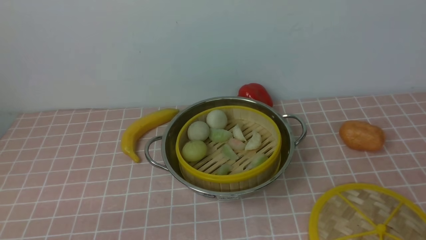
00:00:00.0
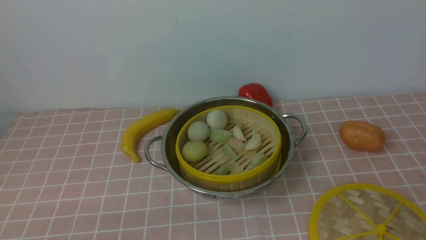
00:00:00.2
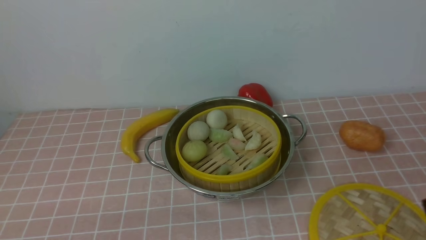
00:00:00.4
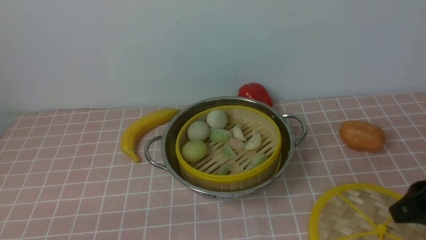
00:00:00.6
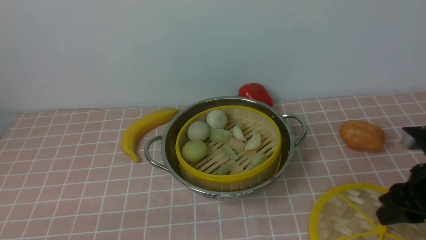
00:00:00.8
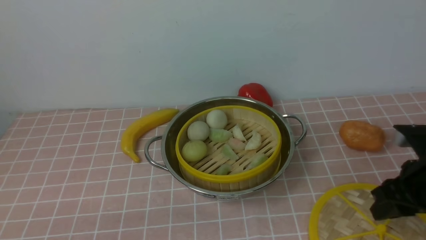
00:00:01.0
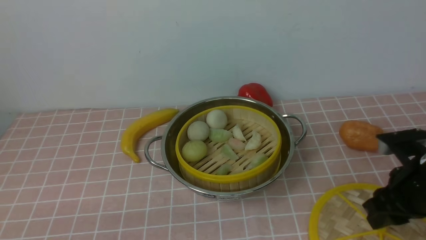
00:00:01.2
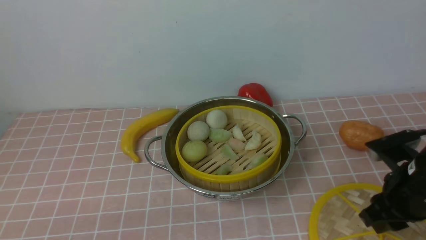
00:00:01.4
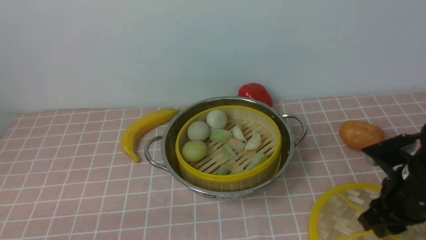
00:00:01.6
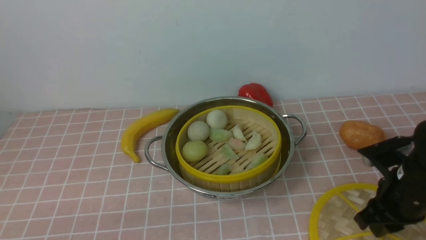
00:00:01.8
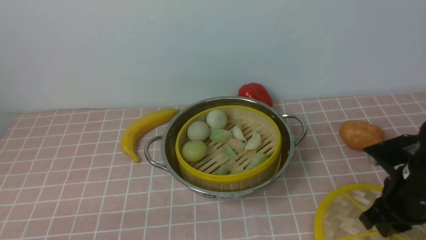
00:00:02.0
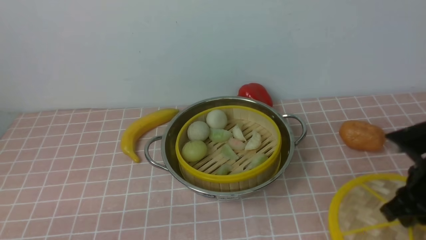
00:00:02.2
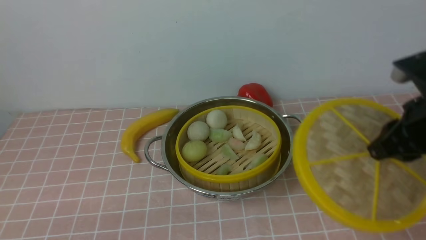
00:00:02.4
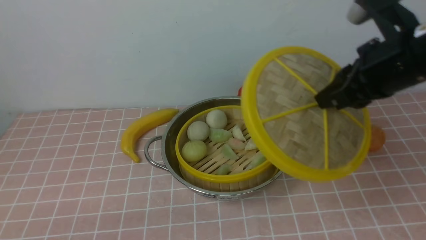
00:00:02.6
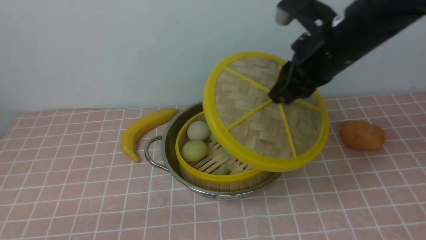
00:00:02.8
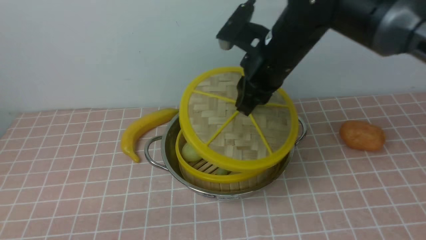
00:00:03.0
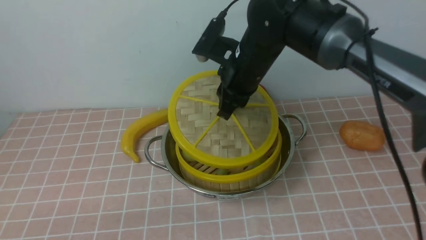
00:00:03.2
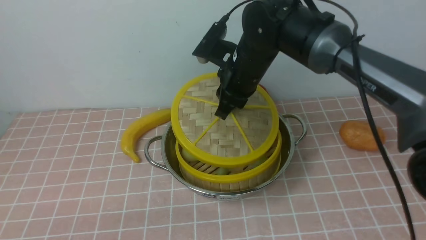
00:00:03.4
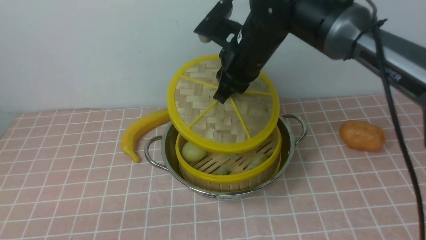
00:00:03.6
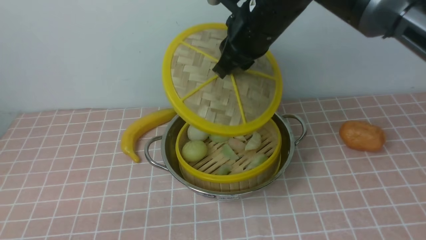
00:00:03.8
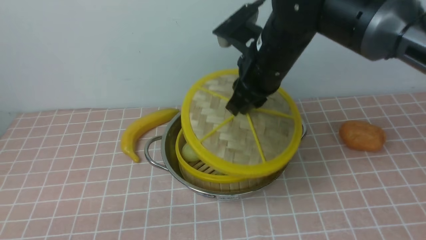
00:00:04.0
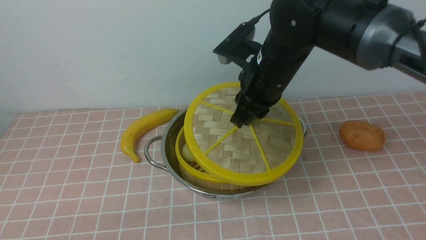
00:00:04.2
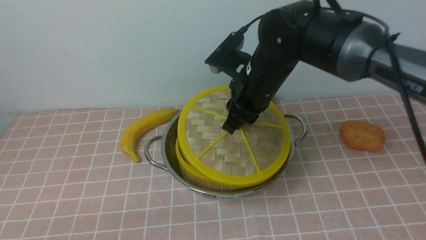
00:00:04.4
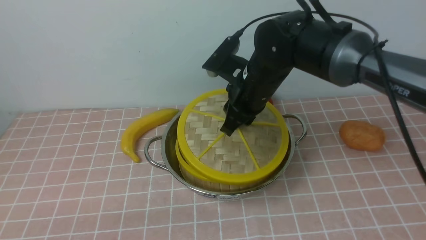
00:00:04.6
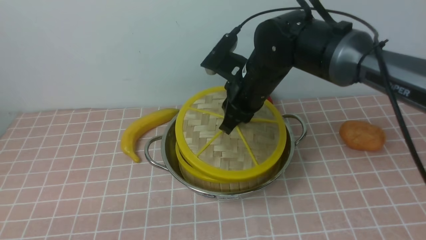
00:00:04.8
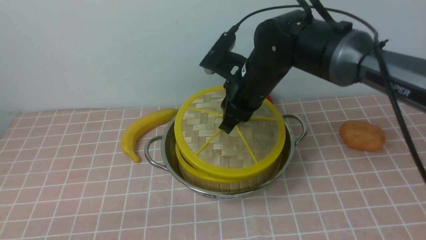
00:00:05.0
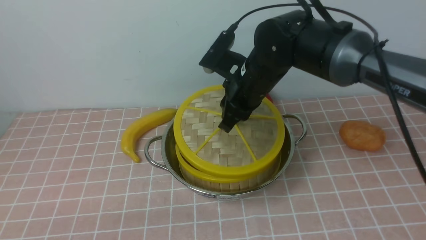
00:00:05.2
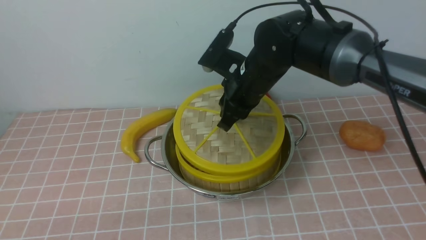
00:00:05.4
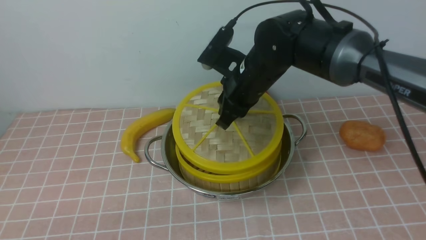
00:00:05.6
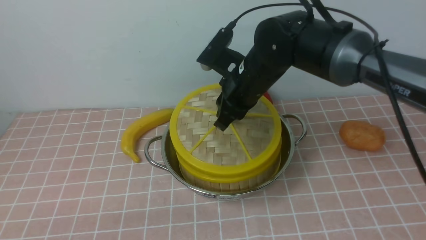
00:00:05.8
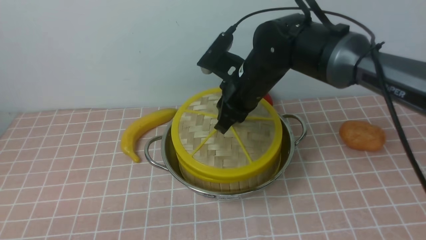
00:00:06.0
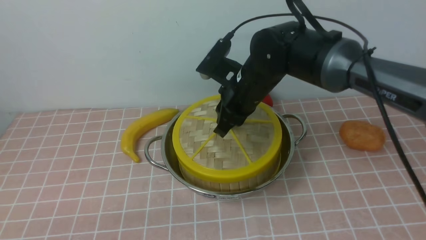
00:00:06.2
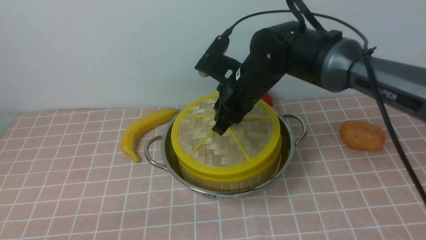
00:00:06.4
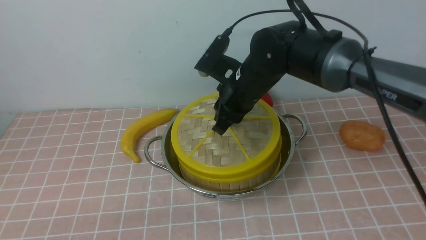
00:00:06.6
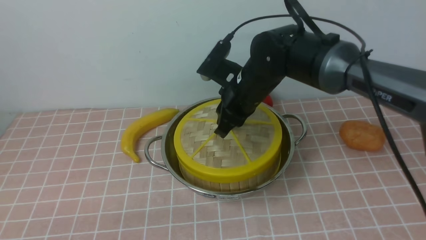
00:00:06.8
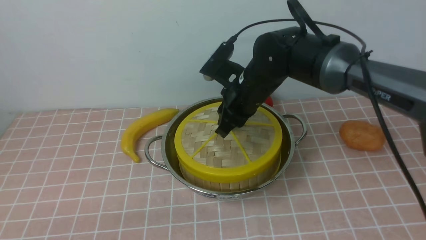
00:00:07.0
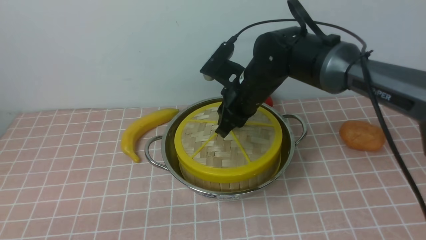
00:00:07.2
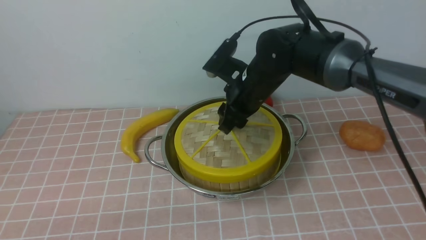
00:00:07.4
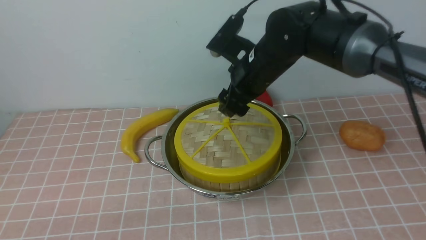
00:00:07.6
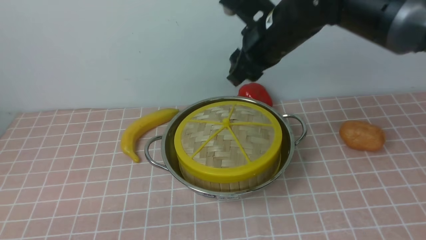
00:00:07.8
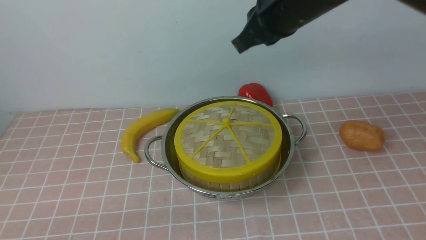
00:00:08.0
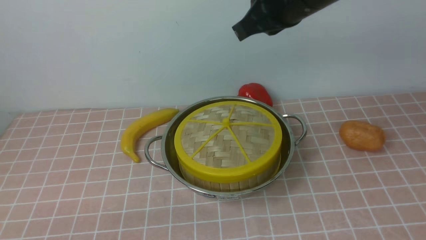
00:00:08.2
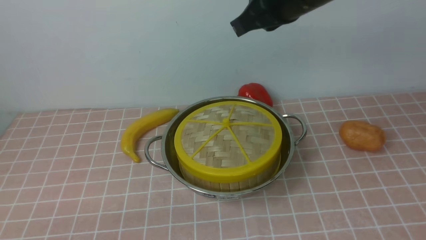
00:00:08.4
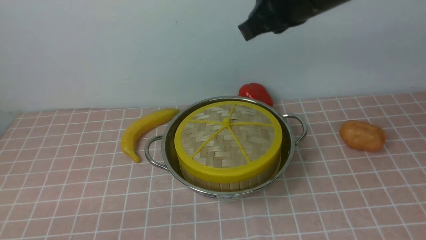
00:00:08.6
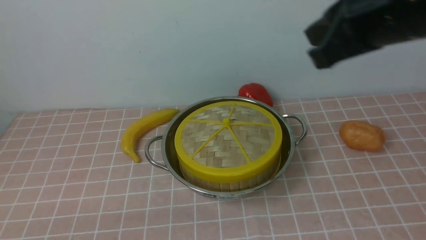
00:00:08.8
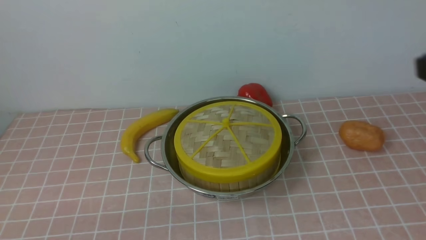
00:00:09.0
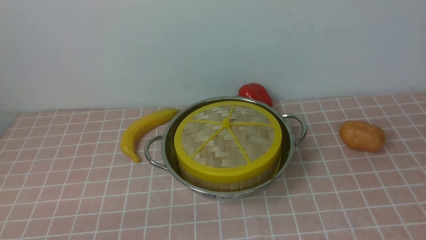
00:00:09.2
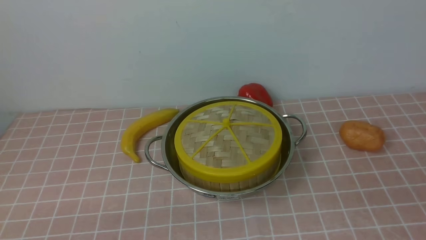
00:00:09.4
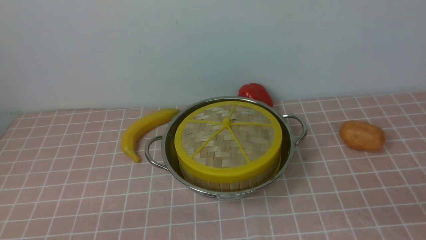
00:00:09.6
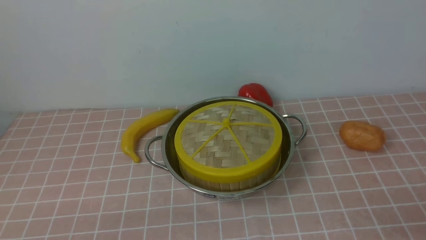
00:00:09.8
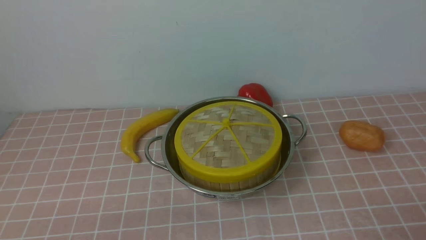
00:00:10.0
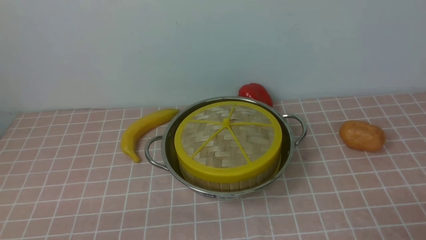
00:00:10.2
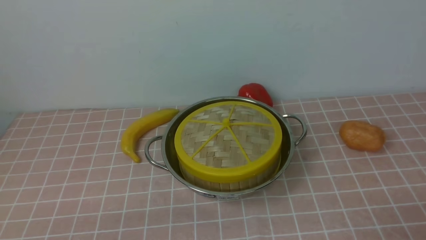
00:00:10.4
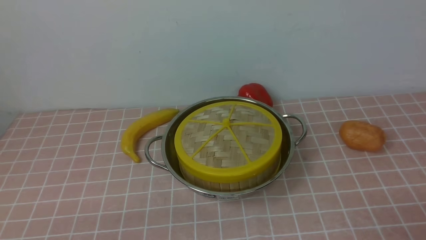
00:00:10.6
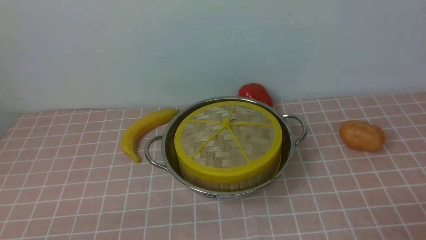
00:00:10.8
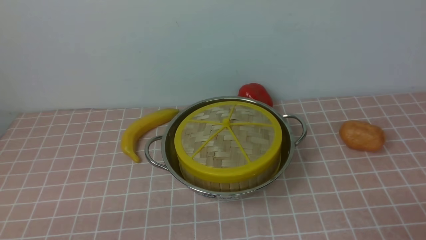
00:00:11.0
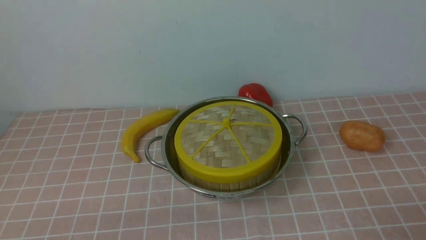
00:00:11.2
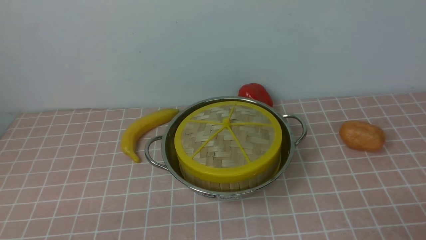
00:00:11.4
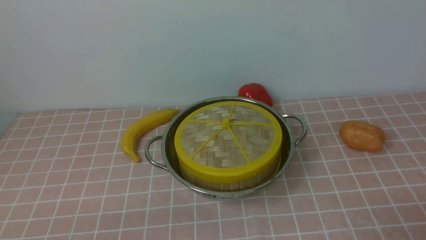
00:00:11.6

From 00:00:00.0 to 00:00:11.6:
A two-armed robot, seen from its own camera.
Task of the whole recording: place the steamer in the pot on the pink tablecloth, and put the lid on the steamer.
Step, from 00:00:00.0 to 00:00:02.0: use the right arm to lift the lid of the steamer.
Step, from 00:00:02.4 to 00:00:07.6: use the right arm to place the steamer lid on the steamer.
From 00:00:00.0 to 00:00:01.4: The right gripper heads forward and downward, covering approximately 25 cm.
From 00:00:01.4 to 00:00:02.8: The right gripper is displaced upward, to the left and forward by some 20 cm.
From 00:00:02.8 to 00:00:04.4: The right gripper travels to the left and downward by roughly 10 cm.
From 00:00:04.4 to 00:00:07.2: There are only small adjustments of the grippers.
From 00:00:07.2 to 00:00:08.8: The right gripper travels upward, backward and to the right by approximately 30 cm, and closes.
From 00:00:08.8 to 00:00:10.2: The right gripper goes approximately 30 cm downward, backward and to the right, and opens its fingers.
From 00:00:10.2 to 00:00:11.6: The two grippers keep their place.
